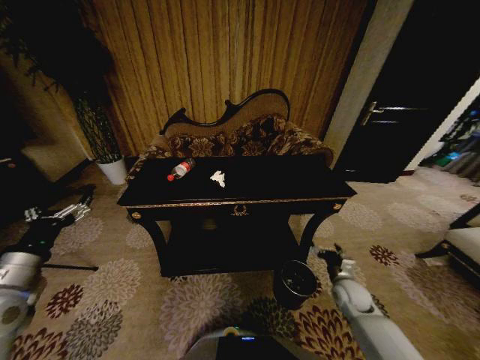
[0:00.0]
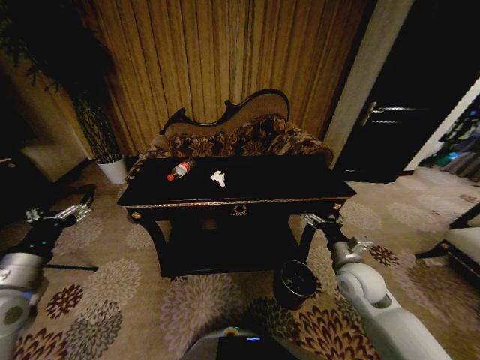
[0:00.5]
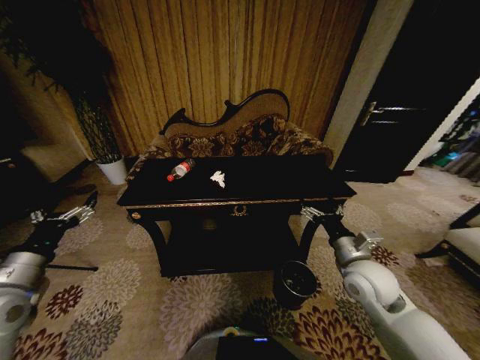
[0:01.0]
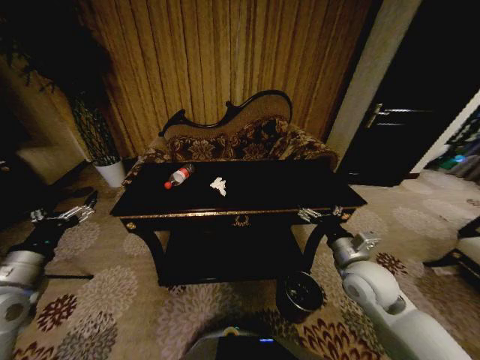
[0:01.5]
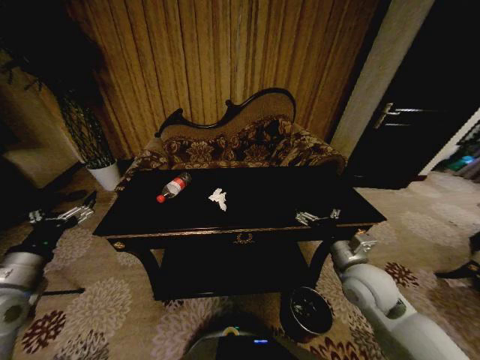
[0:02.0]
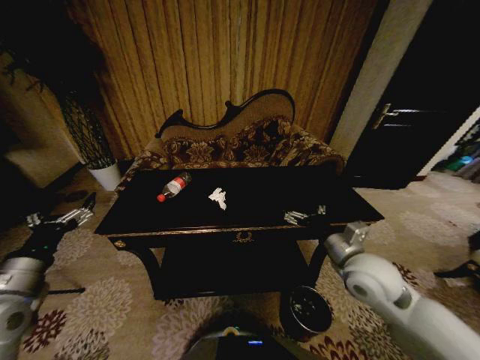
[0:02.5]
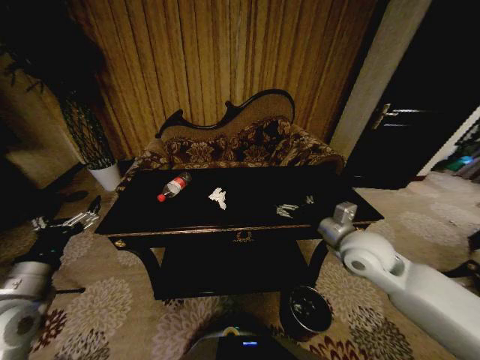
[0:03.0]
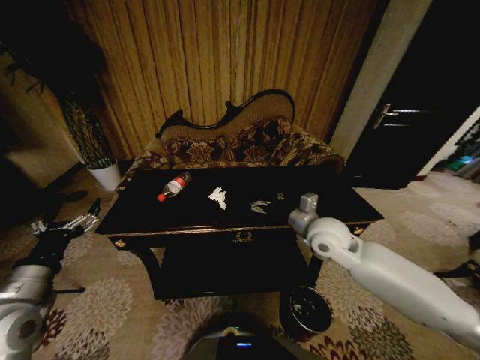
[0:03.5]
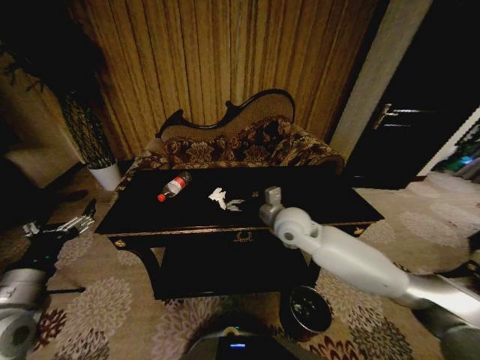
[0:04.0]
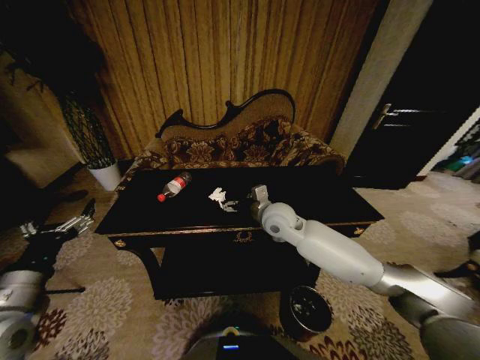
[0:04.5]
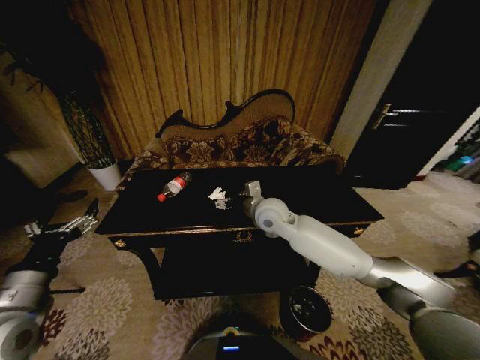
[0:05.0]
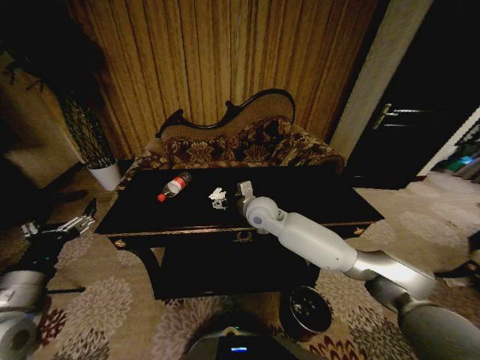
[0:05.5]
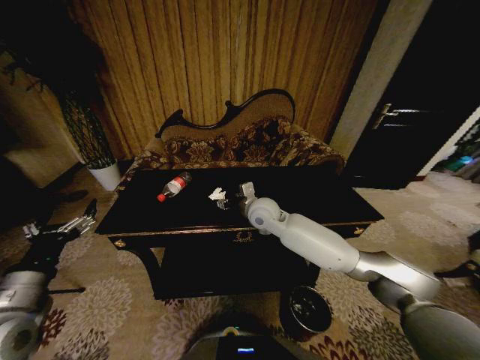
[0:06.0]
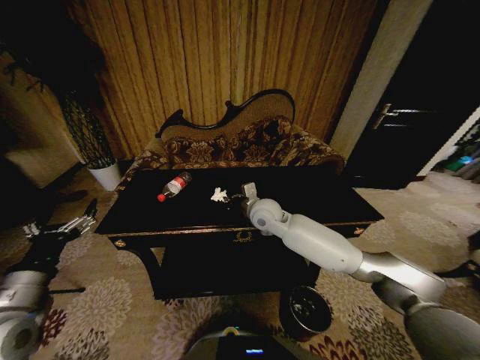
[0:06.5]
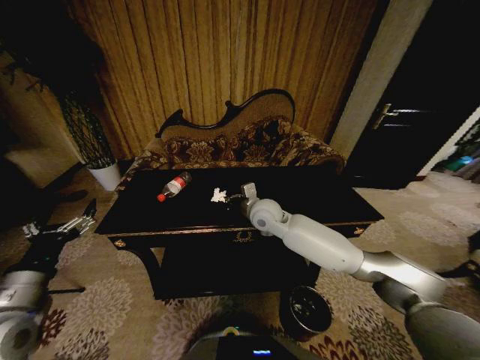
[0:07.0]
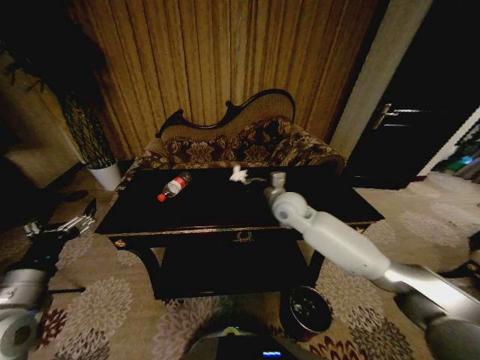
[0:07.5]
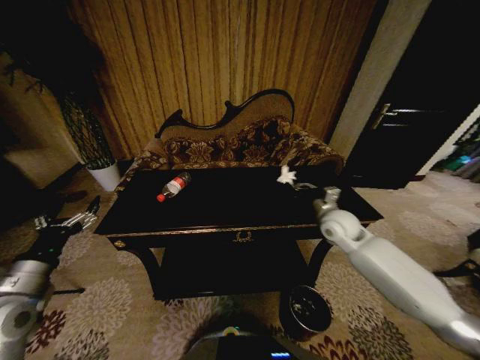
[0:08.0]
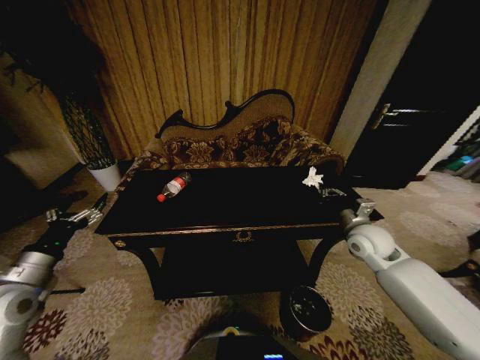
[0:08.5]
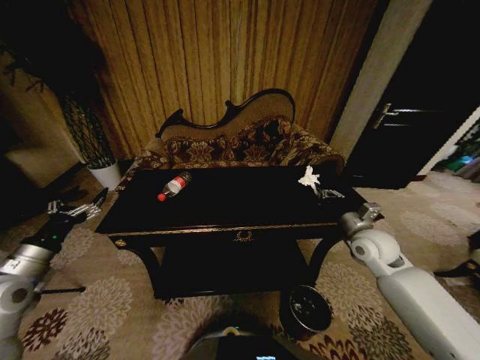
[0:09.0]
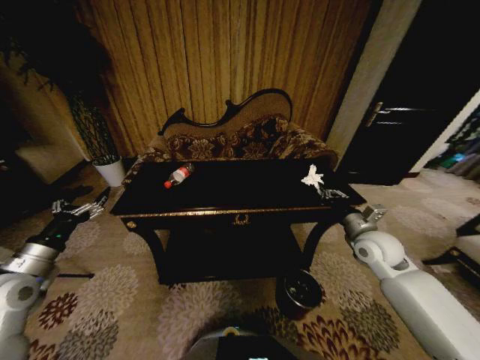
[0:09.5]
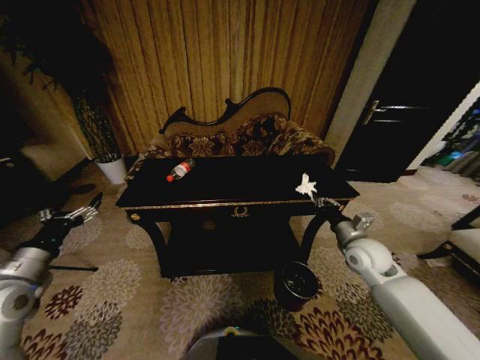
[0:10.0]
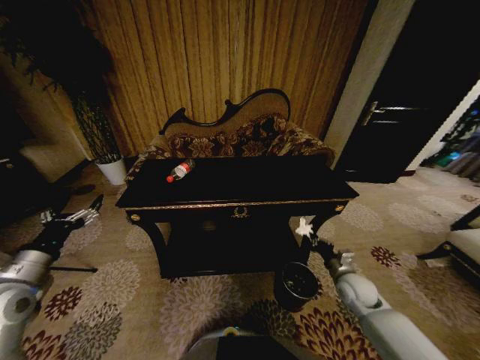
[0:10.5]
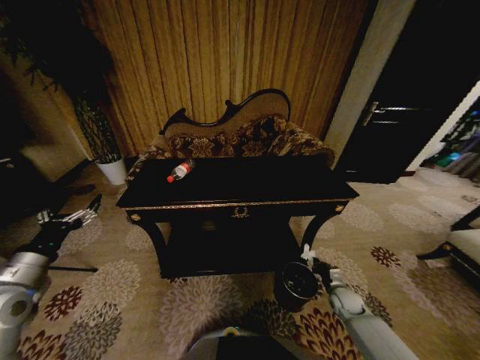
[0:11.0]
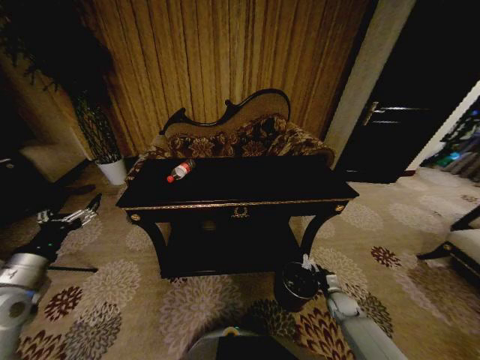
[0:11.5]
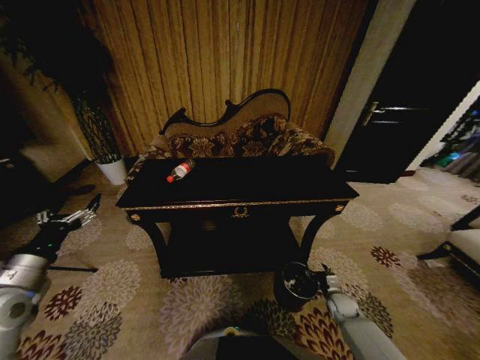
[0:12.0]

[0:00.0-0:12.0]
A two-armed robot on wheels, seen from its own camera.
Task of the whole recording: Move to the front of the table and place the trash on the table into the trash bin.
0:00.0 to 0:02.0: The right gripper travels upward and to the left by some 20 cm.
0:02.0 to 0:04.0: The right gripper heads to the left and forward, covering approximately 20 cm.
0:04.0 to 0:06.0: The right gripper heads forward and to the left, covering approximately 10 cm.
0:06.0 to 0:08.0: The left gripper changes place by approximately 5 cm. The right gripper heads to the right, covering about 25 cm, and closes up.
0:08.0 to 0:10.0: The right gripper goes approximately 5 cm backward.
0:10.0 to 0:12.0: The right gripper moves downward, roughly 30 cm, and opens its fingers.

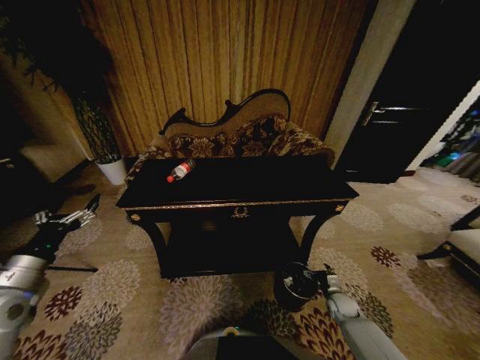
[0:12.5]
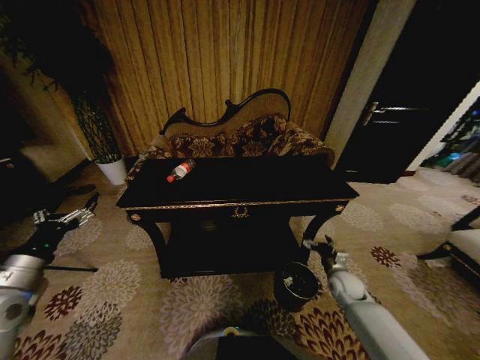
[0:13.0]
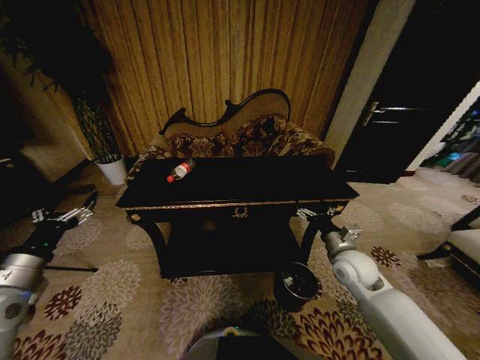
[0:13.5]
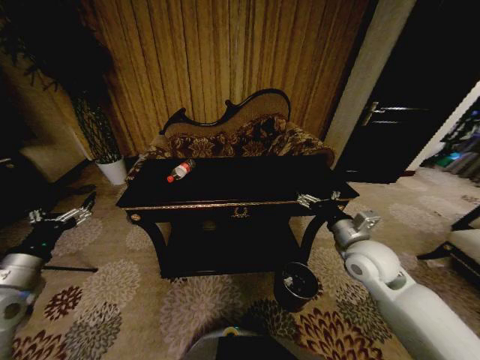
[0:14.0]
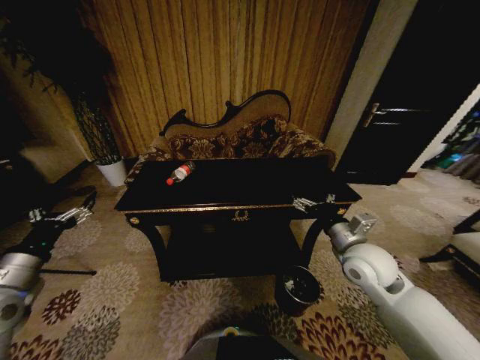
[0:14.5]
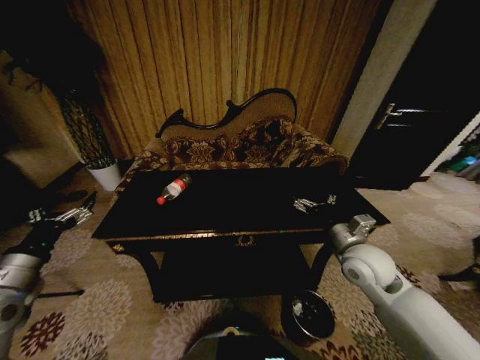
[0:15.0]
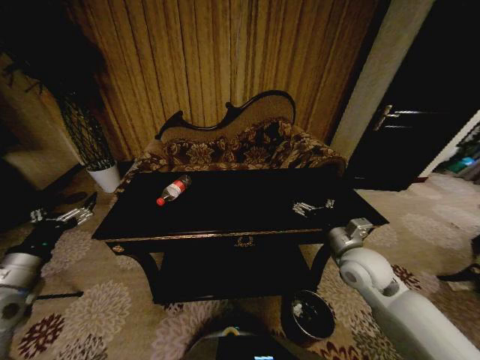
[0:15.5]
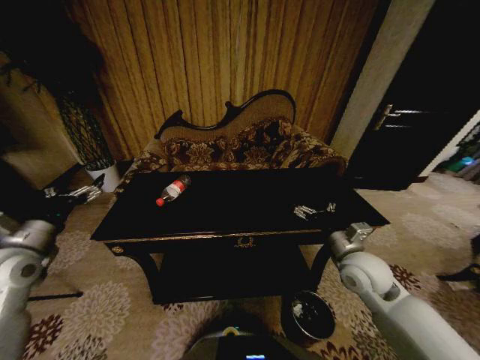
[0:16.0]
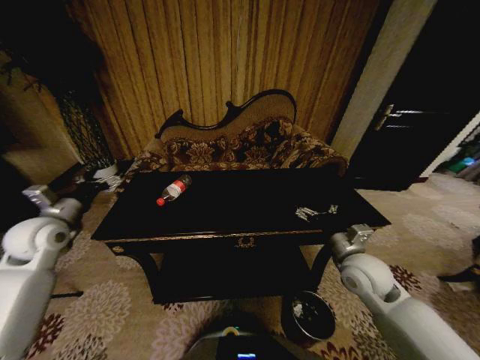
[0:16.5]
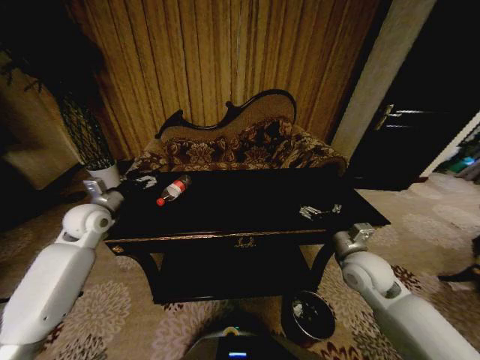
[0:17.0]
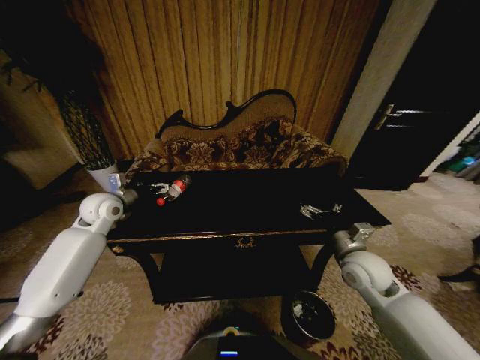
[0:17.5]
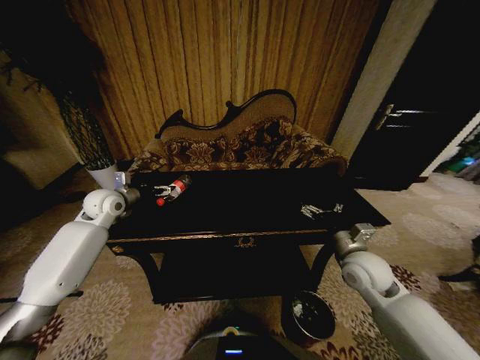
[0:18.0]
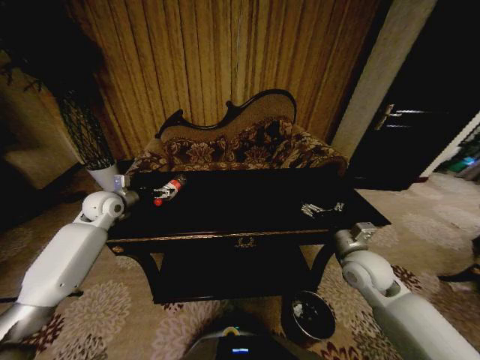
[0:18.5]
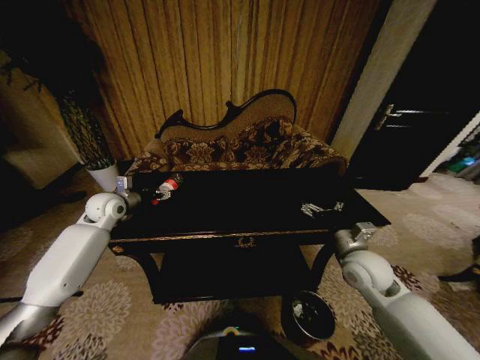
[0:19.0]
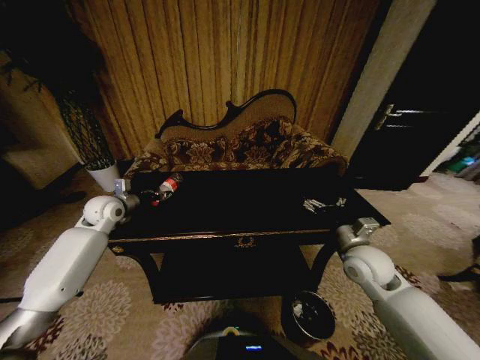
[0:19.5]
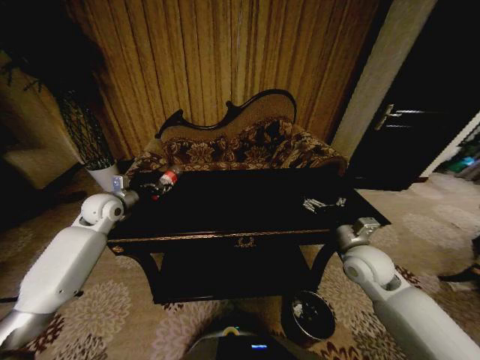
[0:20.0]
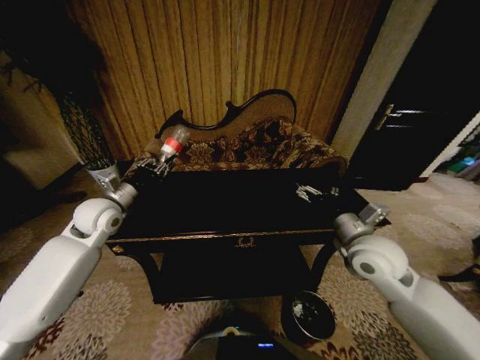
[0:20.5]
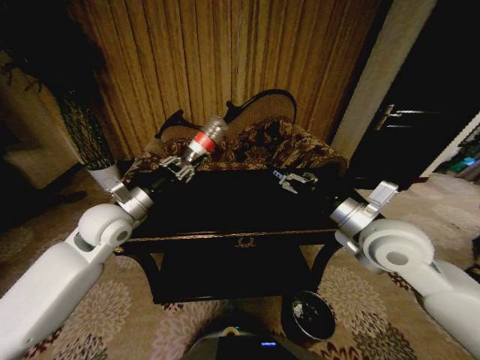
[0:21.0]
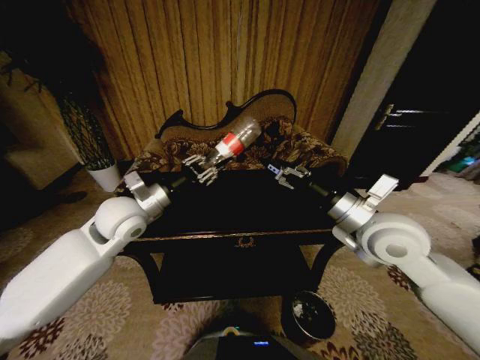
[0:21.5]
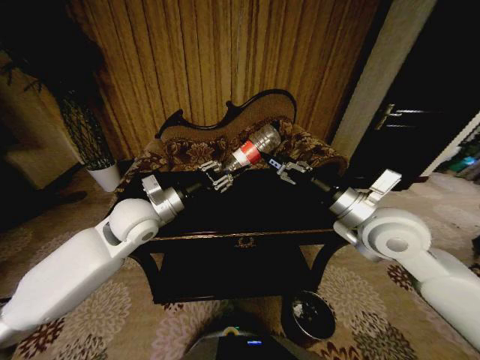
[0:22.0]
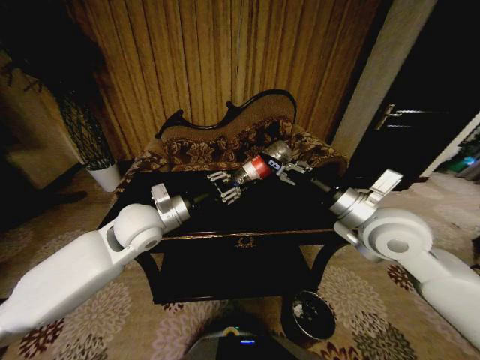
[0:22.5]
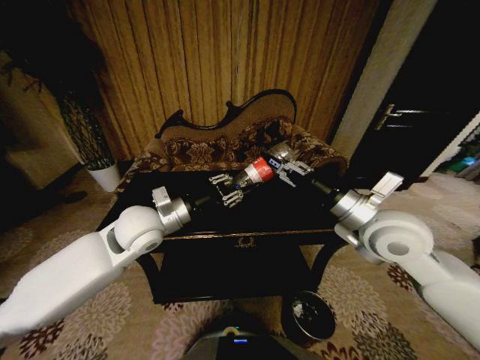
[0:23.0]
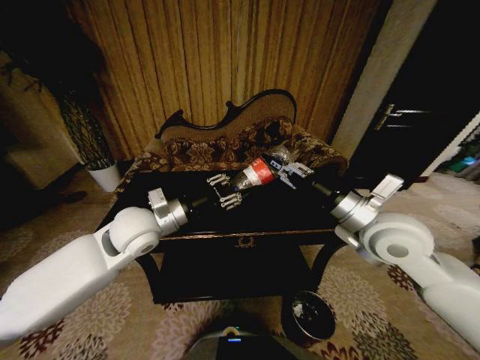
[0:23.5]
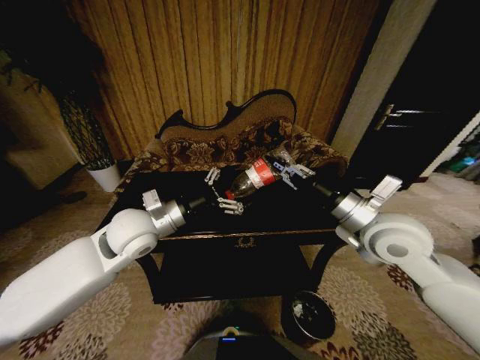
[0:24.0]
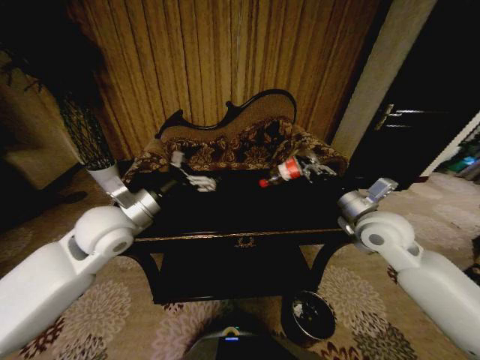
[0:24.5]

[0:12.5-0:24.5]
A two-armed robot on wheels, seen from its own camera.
Task of the whole recording: Move to the front of the table and place the trash on the table into the trash bin.
0:12.5 to 0:14.5: The right gripper moves upward, about 35 cm.
0:14.5 to 0:16.5: The left gripper is displaced forward by some 15 cm.
0:16.5 to 0:18.5: The left gripper moves forward and to the right, about 15 cm.
0:18.5 to 0:20.5: The left gripper moves backward, roughly 5 cm, and closes up, while the right gripper moves upward, roughly 10 cm.
0:20.5 to 0:22.5: The left gripper travels to the right and backward by roughly 15 cm, while the right gripper shifts roughly 10 cm upward.
0:22.5 to 0:24.5: The right gripper moves approximately 10 cm, and closes up. The left gripper ends up some 5 cm from where it was, and opens its fingers.

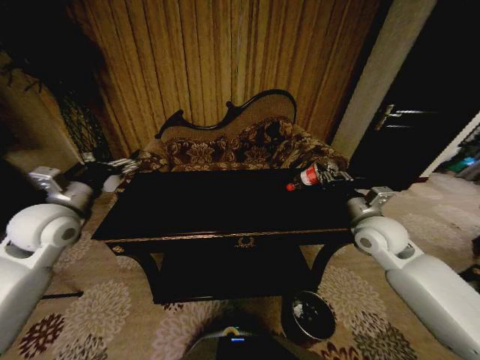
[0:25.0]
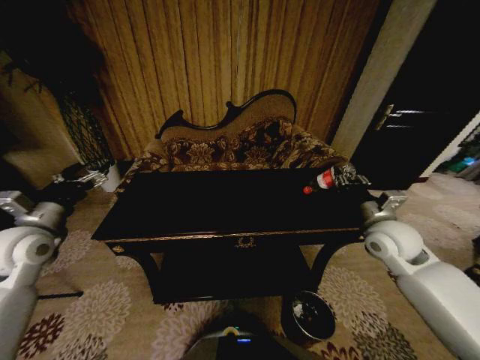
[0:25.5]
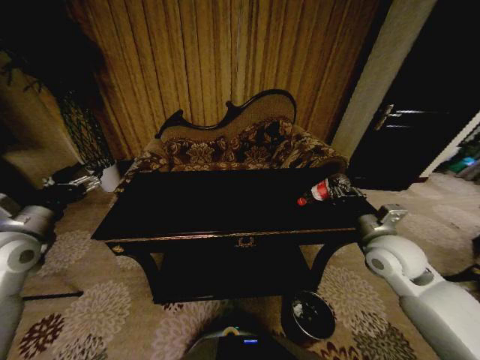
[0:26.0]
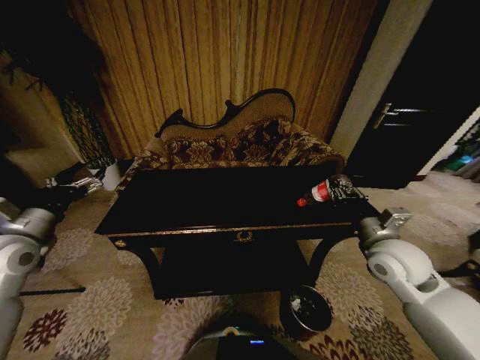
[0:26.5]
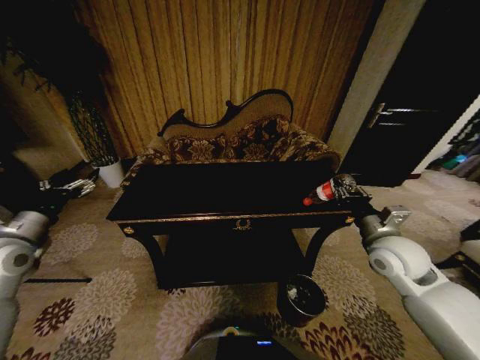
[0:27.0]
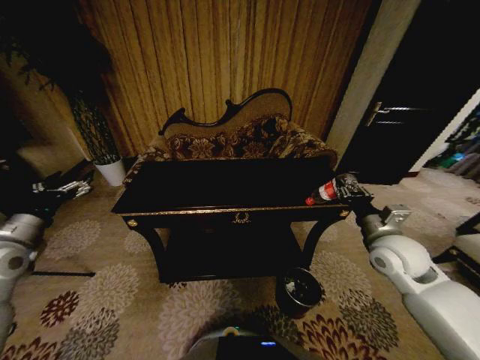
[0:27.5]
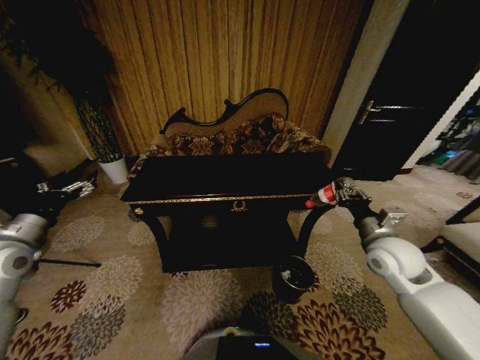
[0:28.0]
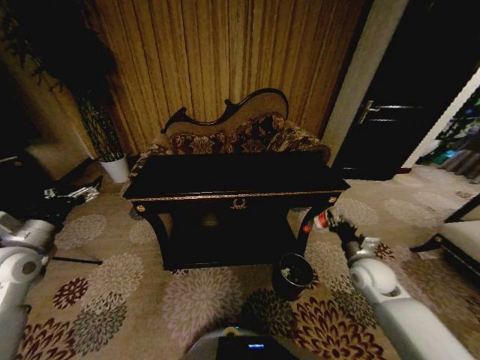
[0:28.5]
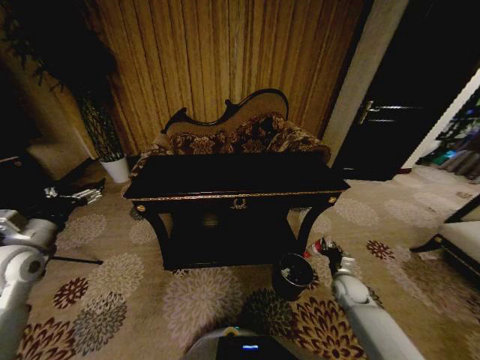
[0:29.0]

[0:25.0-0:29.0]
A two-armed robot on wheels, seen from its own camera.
Task of the whole recording: Move to the front of the table and place the trash on the table into the trash bin.
0:25.0 to 0:27.0: The right gripper changes place by some 5 cm. Meanwhile the left gripper shifts approximately 10 cm to the left and backward.
0:27.0 to 0:29.0: The right gripper is displaced downward by roughly 30 cm.
